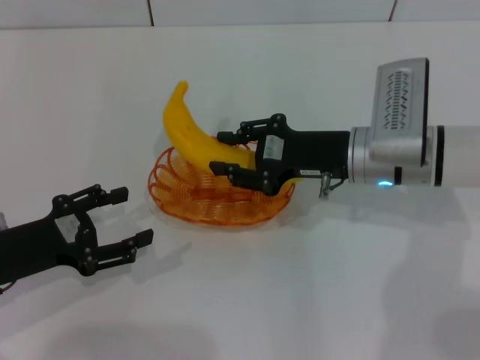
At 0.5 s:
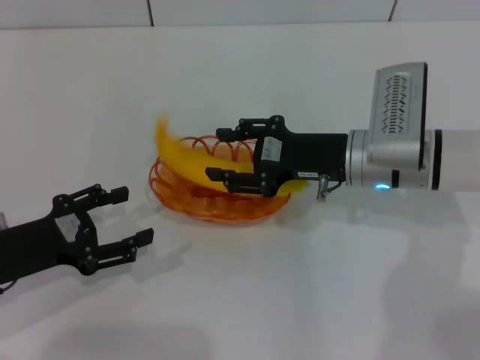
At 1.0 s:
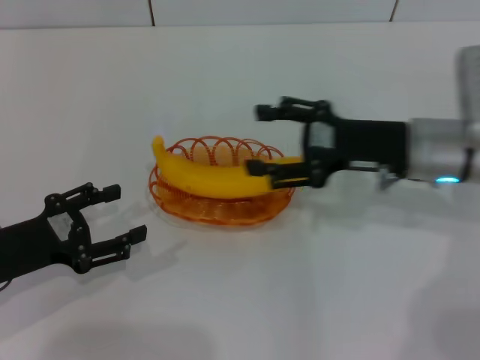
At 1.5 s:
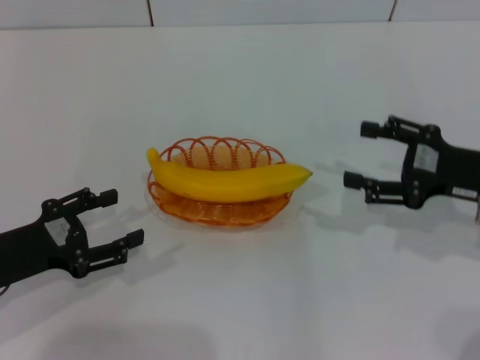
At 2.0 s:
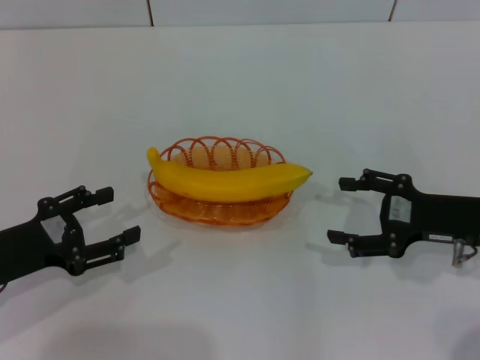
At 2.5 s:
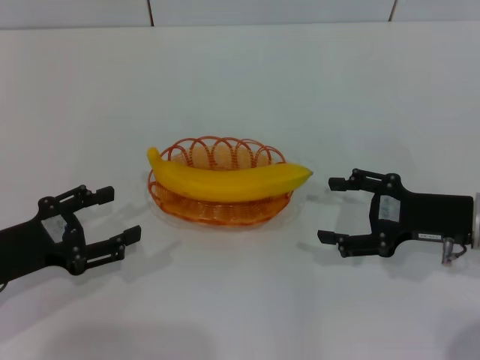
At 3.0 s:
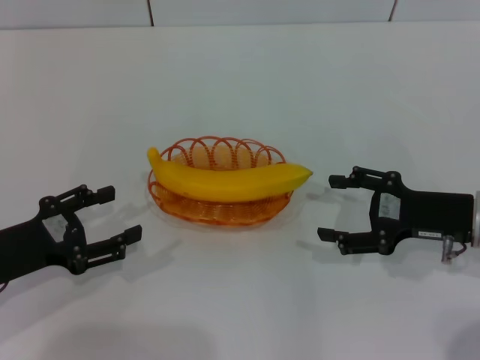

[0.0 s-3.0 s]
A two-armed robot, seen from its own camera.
Step, 0.0 to 1.0 s: Place the banana into the basket with the right gripper.
0.0 to 1.5 s: The right gripper moves to the right and backward, roughly 15 cm, and opens up.
1.5 to 3.0 s: The grippers stay close to where they were, moving slightly.
